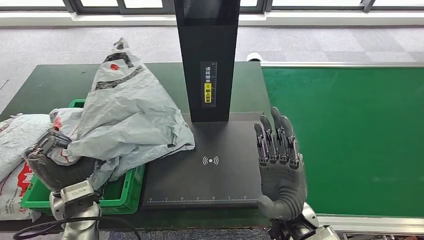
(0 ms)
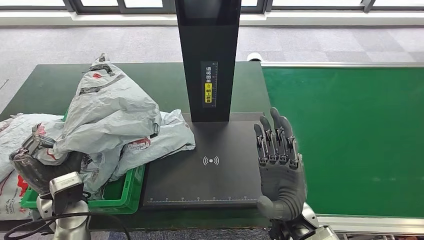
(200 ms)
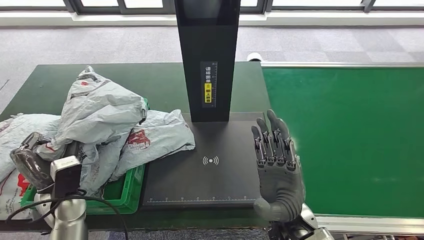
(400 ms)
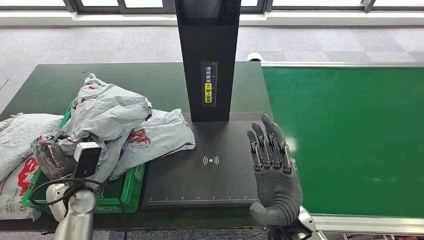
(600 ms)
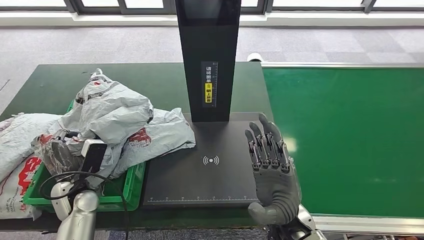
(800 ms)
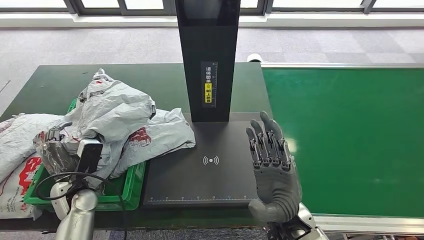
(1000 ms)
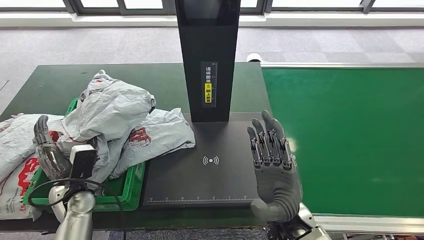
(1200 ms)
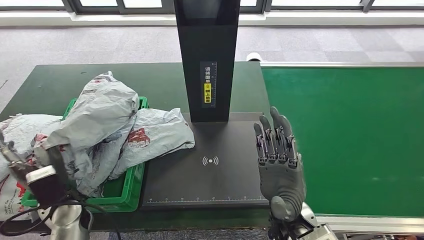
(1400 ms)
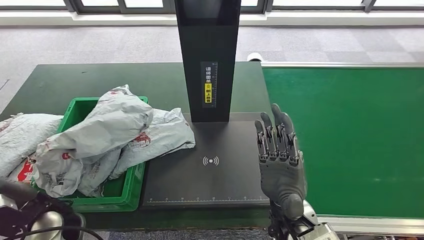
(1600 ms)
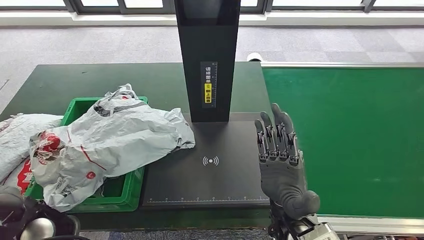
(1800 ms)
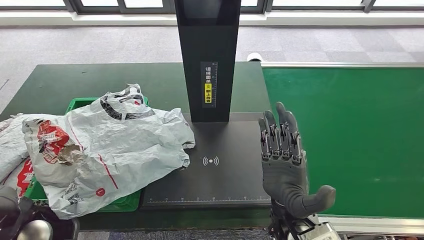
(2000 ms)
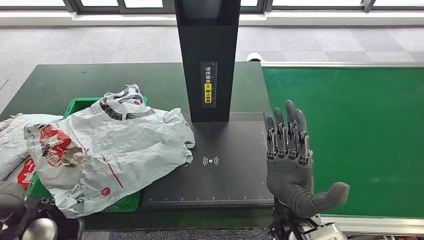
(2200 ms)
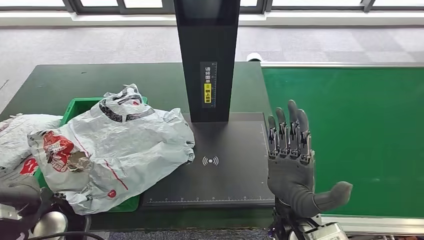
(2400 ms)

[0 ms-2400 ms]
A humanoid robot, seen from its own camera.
Step, 0 ms to 2200 ms: Place the parcel into the delivery box.
0 ms to 1200 ms: The left hand moves downward, some 5 cm.
